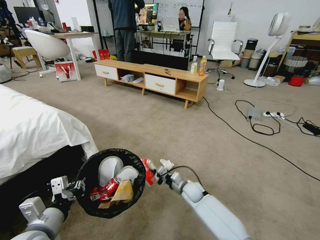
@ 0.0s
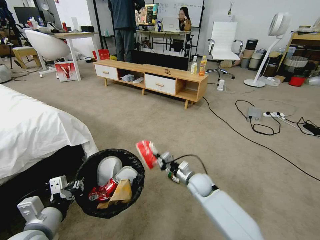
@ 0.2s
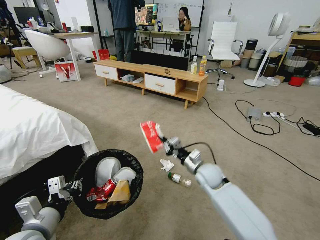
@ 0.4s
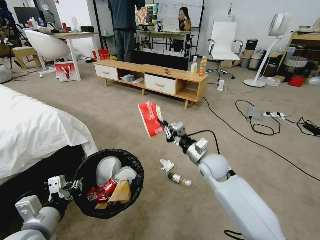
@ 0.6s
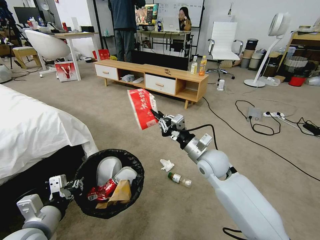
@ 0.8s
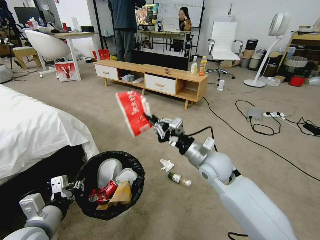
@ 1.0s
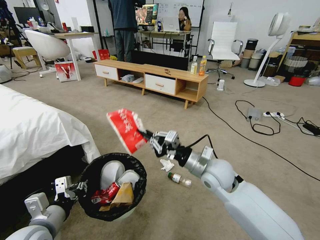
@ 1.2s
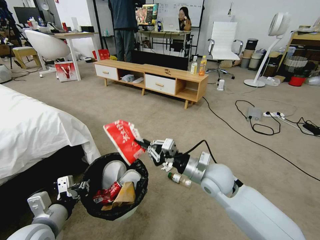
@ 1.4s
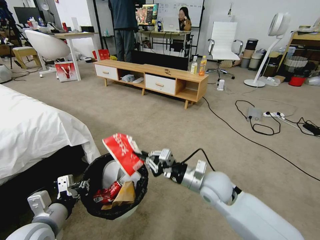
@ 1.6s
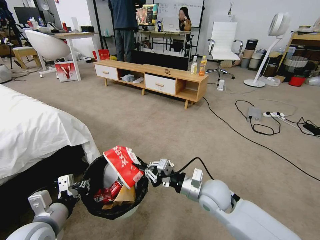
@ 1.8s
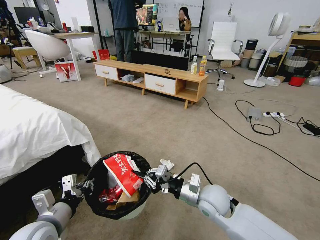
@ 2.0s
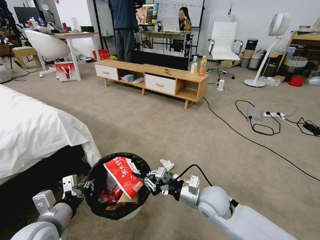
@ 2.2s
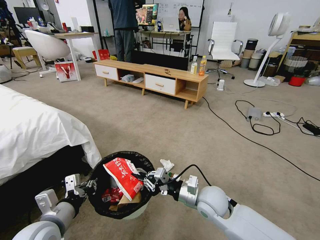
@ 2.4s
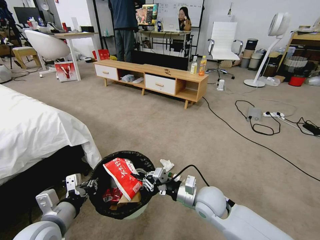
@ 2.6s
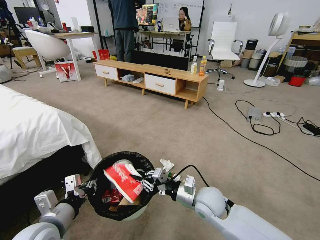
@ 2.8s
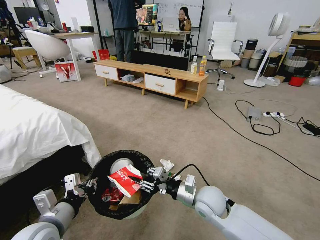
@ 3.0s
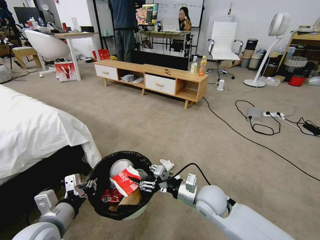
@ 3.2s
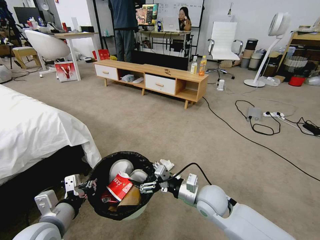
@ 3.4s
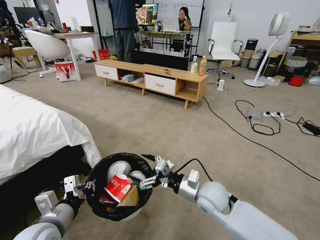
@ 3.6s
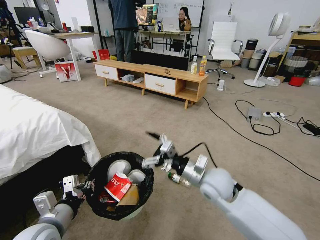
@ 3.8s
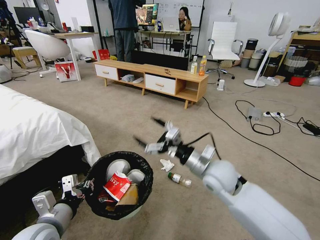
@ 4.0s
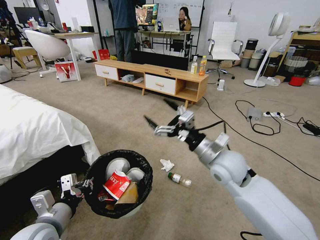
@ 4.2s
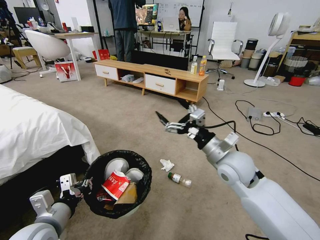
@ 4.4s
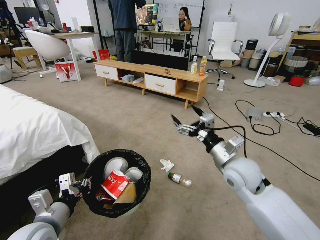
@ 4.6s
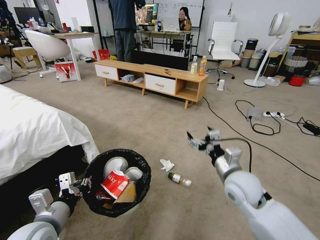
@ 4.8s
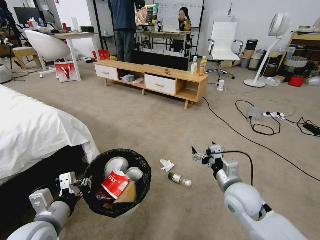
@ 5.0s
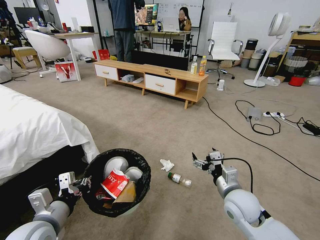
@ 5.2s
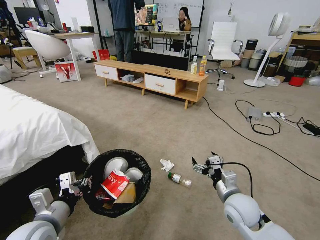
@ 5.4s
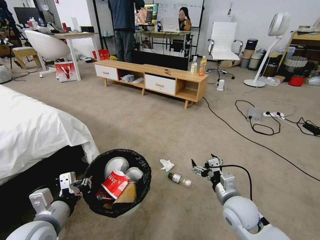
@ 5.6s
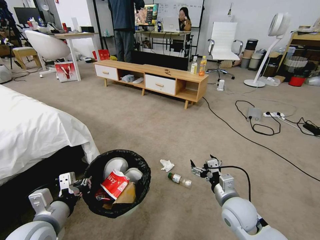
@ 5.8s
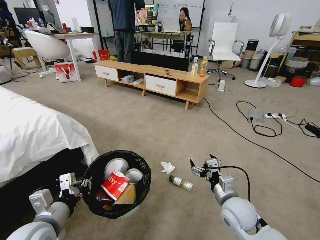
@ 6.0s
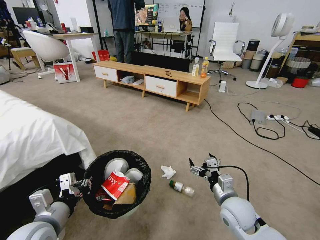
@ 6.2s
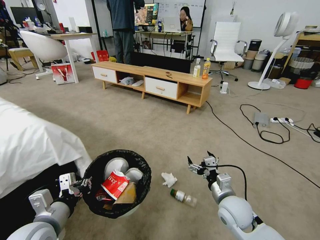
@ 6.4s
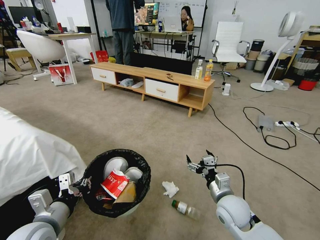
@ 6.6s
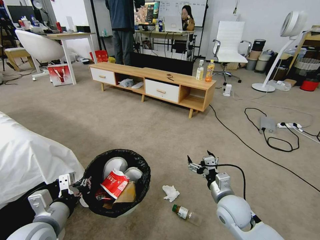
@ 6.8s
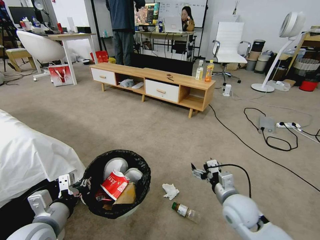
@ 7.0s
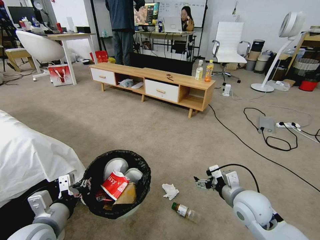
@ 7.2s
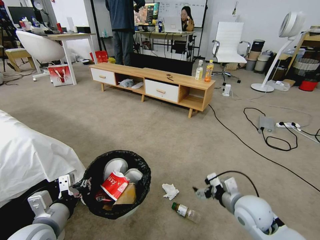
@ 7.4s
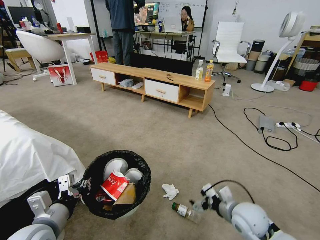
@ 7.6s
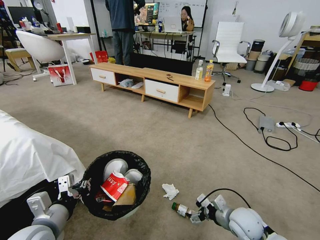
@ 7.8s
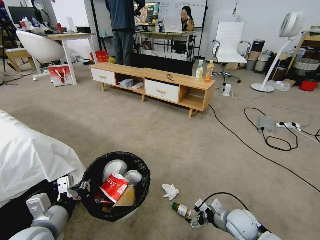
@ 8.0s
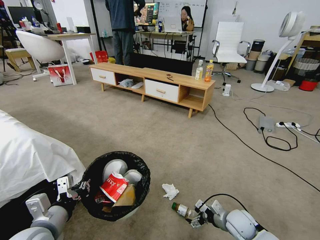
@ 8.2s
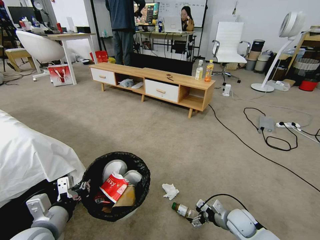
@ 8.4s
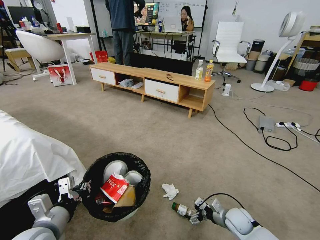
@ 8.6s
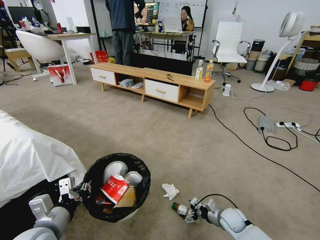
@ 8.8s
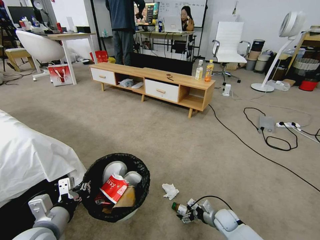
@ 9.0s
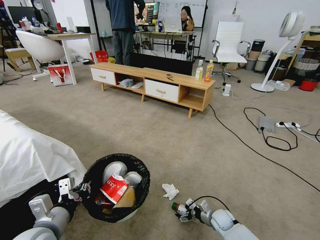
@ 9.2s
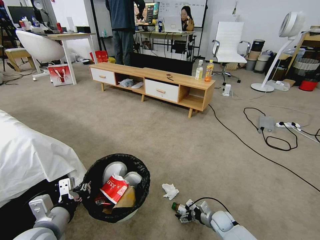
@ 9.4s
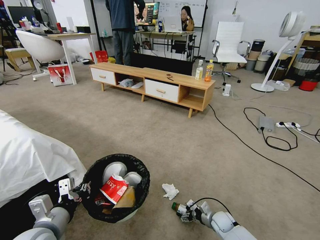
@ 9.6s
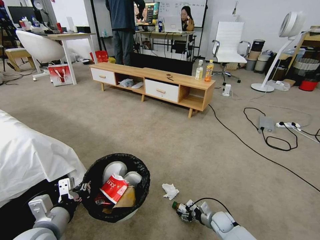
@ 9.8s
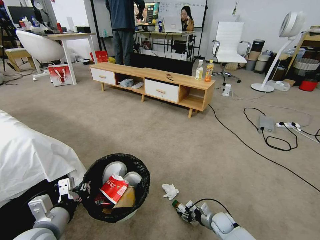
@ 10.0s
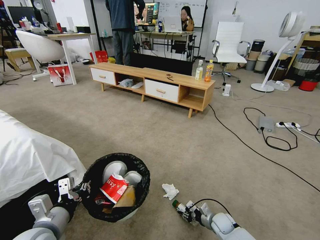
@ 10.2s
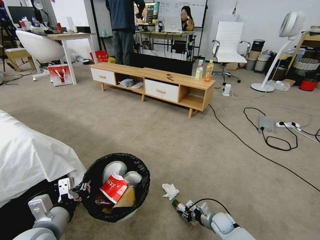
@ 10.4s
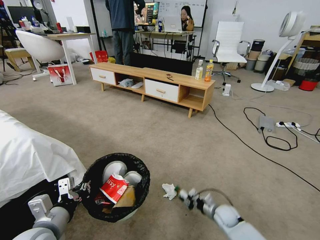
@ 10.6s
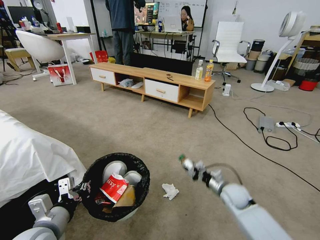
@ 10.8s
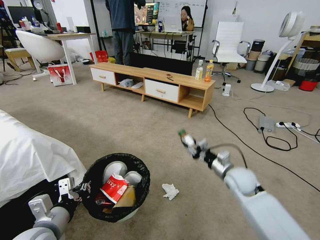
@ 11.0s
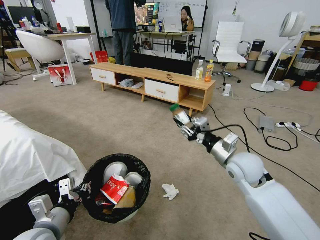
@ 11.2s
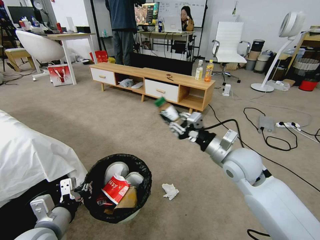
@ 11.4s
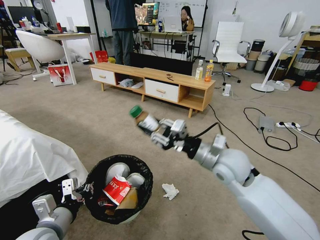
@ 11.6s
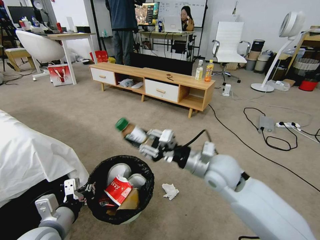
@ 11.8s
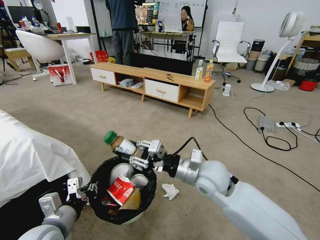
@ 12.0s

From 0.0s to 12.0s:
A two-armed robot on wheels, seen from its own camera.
Task of the whole recording: Pick up the trash bin and place the garbage on the floor into it.
From 0.0s to 1.6s: The right gripper heads upward and backward, covering approximately 20 cm.
From 1.6s to 3.0s: The right gripper ends up roughly 5 cm from where it was, and opens.
From 3.0s to 4.4s: The right gripper heads upward and to the right, covering some 15 cm, and opens.
From 4.4s to 6.0s: The right gripper heads downward and backward, covering some 15 cm.
From 7.6s to 9.0s: The right gripper travels downward by some 20 cm.
From 9.0s to 10.4s: The right gripper closes.
From 10.4s to 12.0s: The right gripper is displaced upward by some 35 cm.

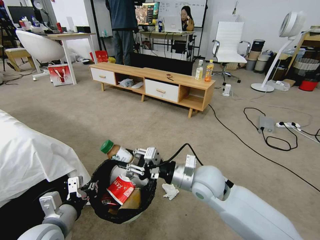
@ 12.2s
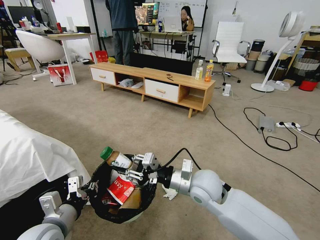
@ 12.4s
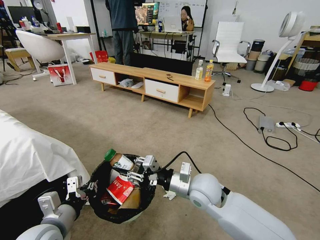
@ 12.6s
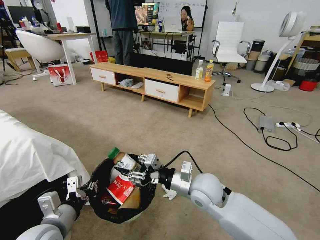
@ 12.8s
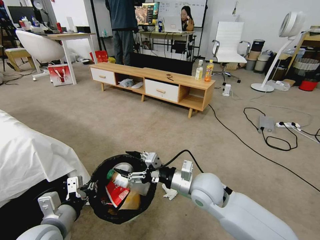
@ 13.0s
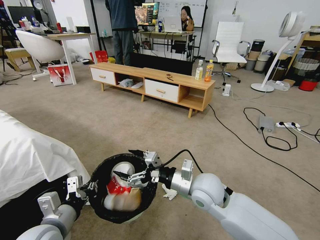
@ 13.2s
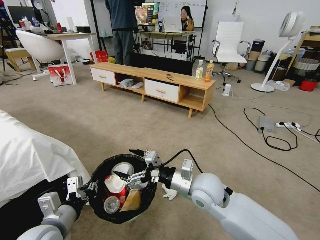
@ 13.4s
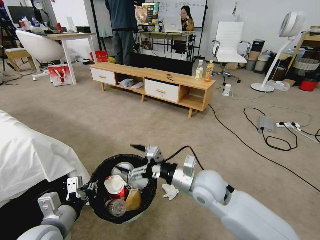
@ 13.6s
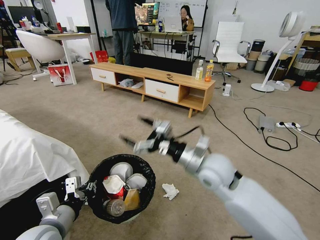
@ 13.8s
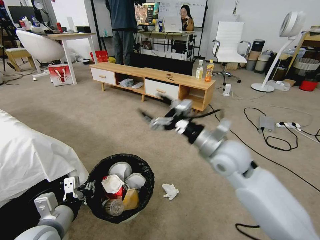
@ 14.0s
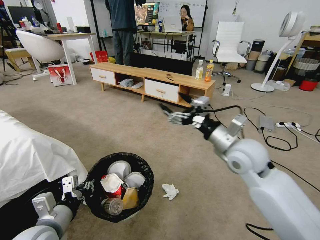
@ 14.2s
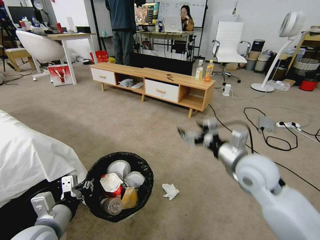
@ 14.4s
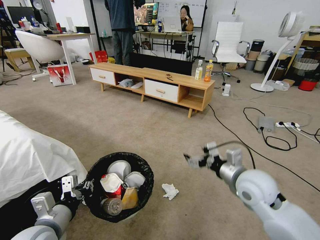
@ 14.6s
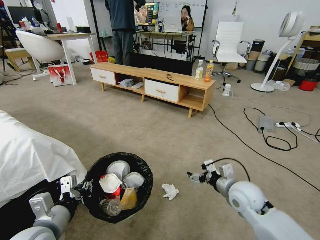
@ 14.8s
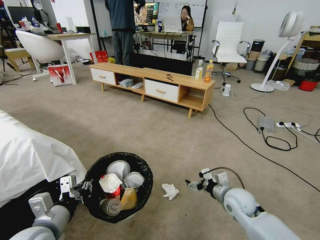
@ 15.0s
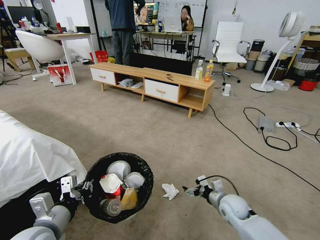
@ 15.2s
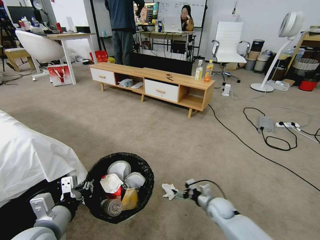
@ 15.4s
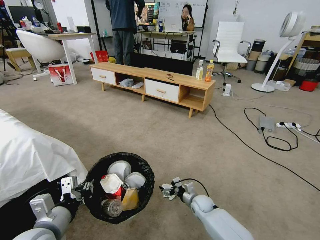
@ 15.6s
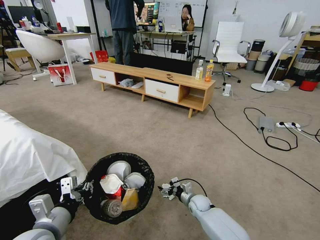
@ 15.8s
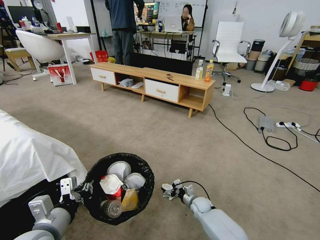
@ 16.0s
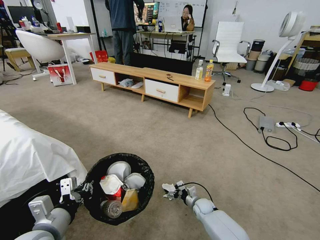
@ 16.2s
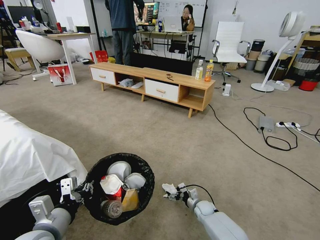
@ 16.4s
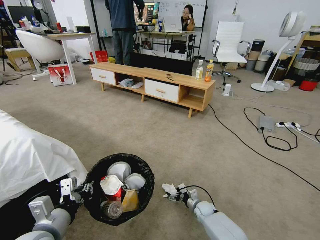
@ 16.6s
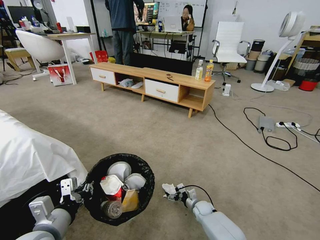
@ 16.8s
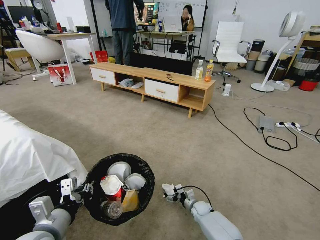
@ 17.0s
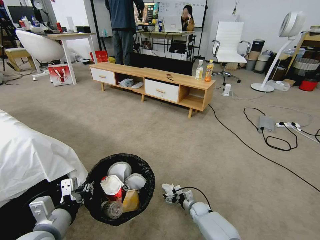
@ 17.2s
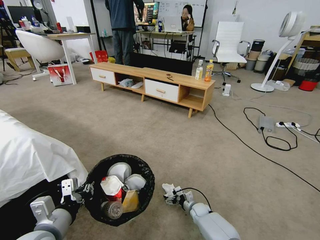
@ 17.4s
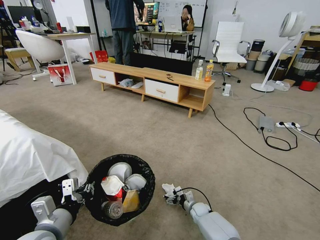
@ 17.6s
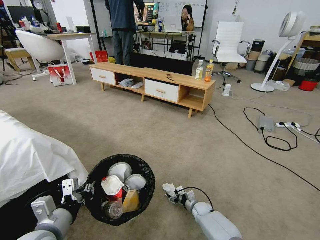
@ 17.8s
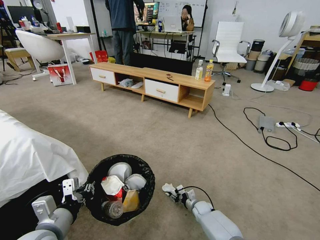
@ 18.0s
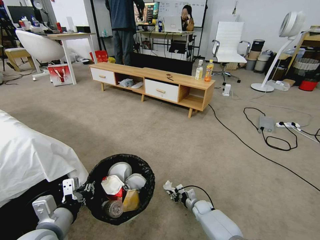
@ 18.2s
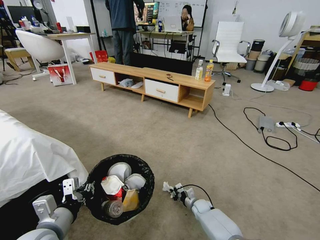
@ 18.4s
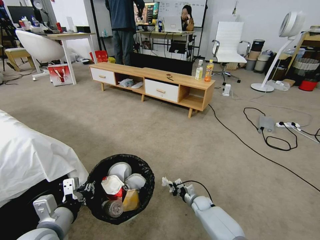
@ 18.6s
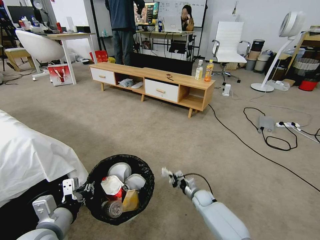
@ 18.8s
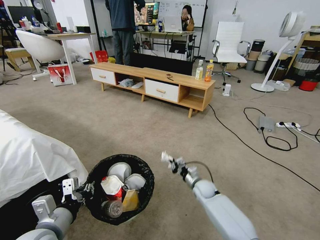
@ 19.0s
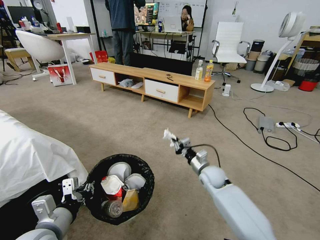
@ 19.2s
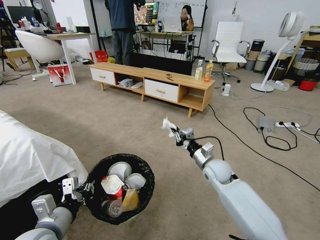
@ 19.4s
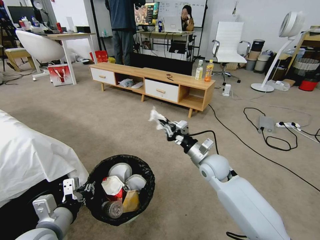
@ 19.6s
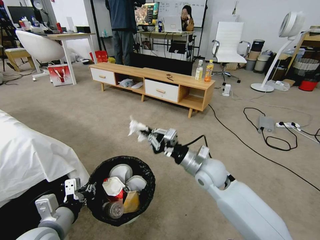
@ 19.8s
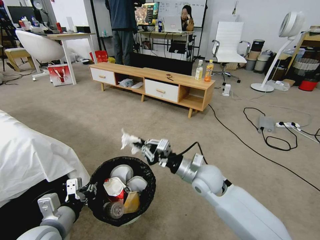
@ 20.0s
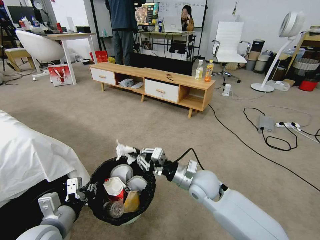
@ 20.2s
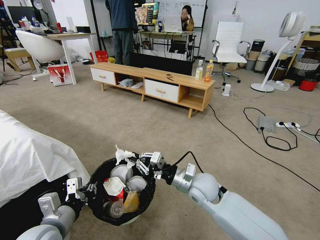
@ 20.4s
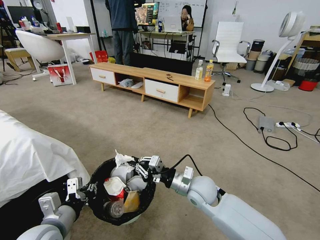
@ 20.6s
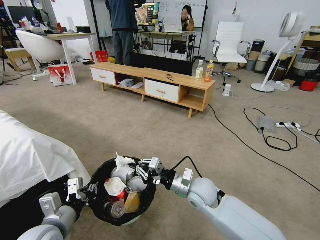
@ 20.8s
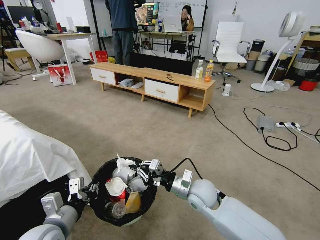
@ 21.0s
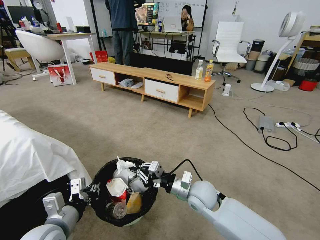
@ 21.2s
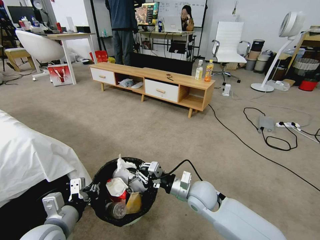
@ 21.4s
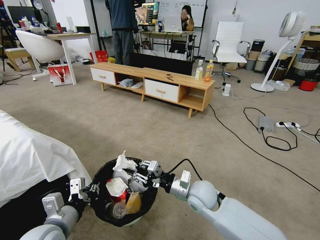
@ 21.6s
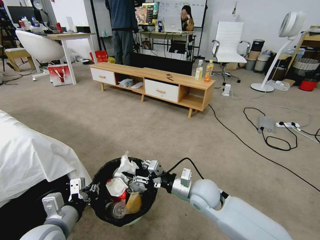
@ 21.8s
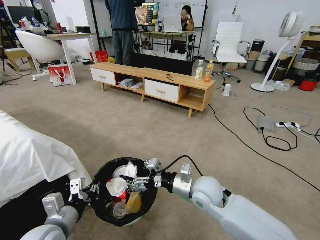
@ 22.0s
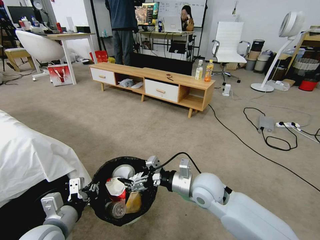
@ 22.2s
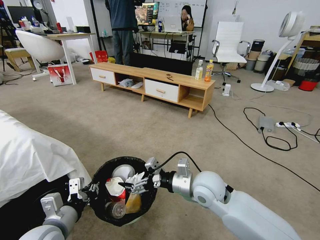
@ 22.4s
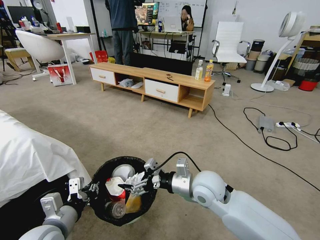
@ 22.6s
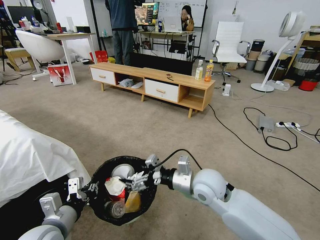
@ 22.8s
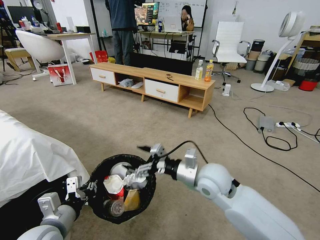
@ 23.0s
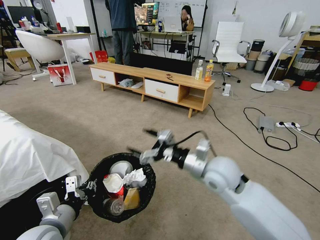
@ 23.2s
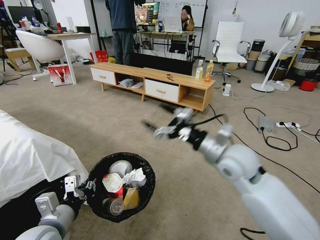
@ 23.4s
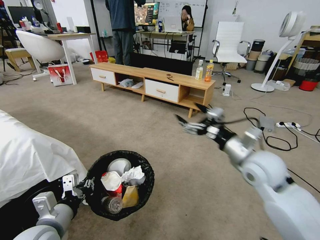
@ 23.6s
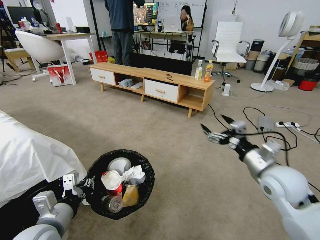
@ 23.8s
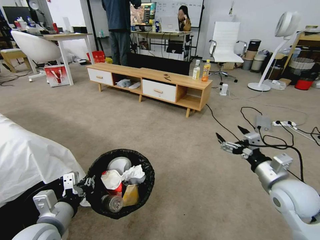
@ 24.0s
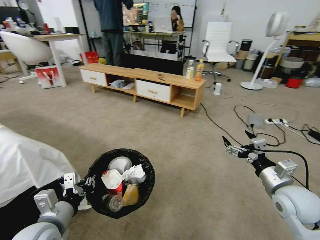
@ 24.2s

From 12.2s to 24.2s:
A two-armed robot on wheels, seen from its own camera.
Task of the whole recording: Pick up the trash bin and place the garbage on the floor into it.
From 12.2s to 13.8s: The right gripper opens its fingers.
From 13.8s to 15.2s: The right gripper shifts approximately 30 cm downward and to the right.
From 15.2s to 16.6s: The right gripper heads downward, covering approximately 15 cm.
From 16.6s to 18.2s: The right gripper closes.
From 18.2s to 19.8s: The right gripper shifts roughly 35 cm upward.
From 19.8s to 21.2s: The right gripper goes some 10 cm downward and backward.
From 21.2s to 22.6s: The right gripper goes some 10 cm upward, and opens its fingers.
From 22.6s to 24.2s: The right gripper heads to the right, covering some 25 cm.
